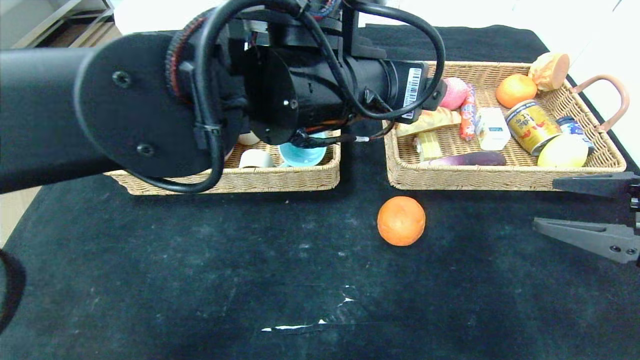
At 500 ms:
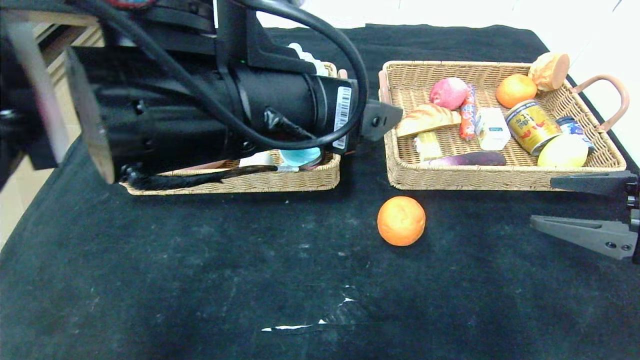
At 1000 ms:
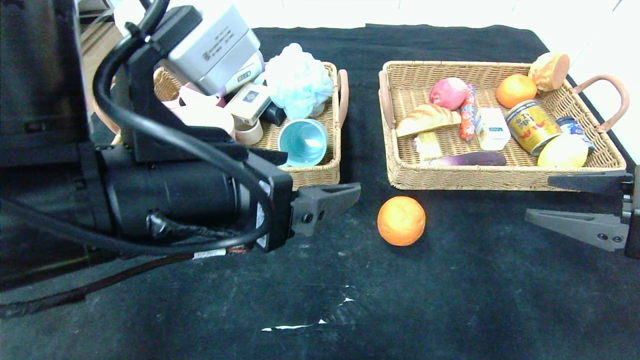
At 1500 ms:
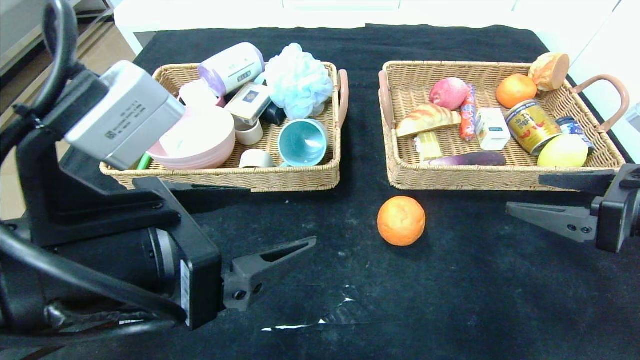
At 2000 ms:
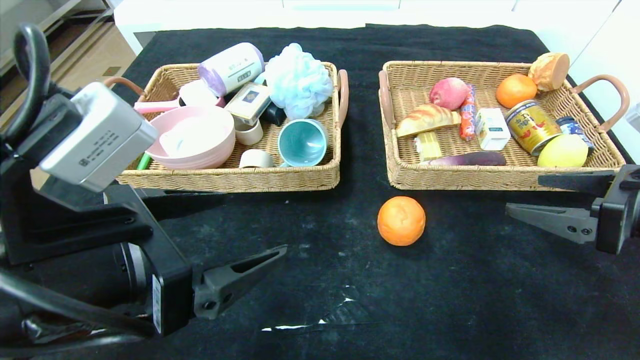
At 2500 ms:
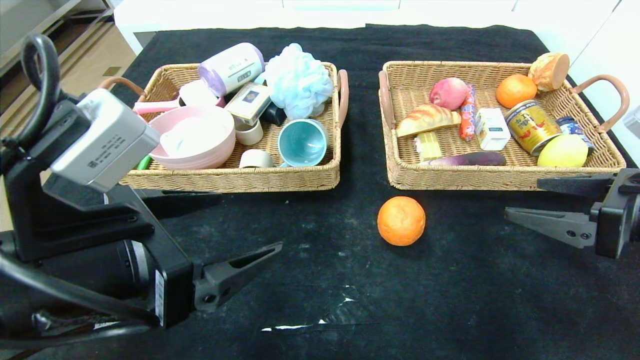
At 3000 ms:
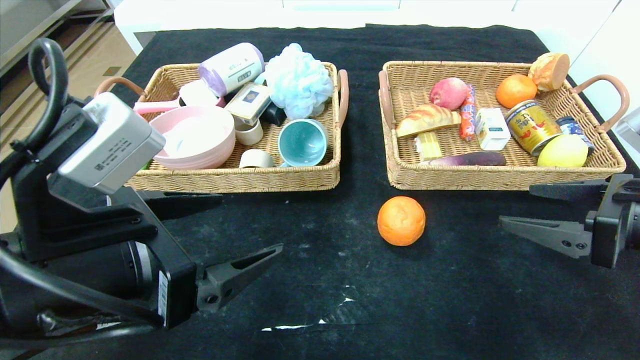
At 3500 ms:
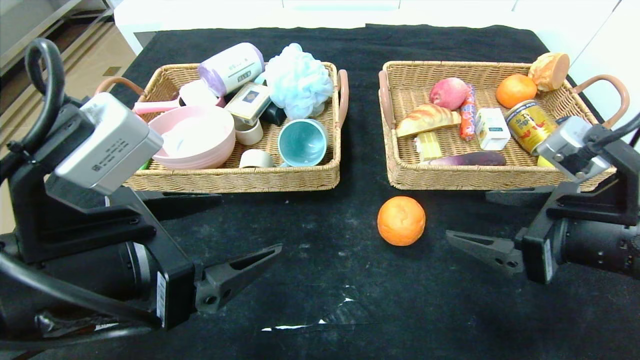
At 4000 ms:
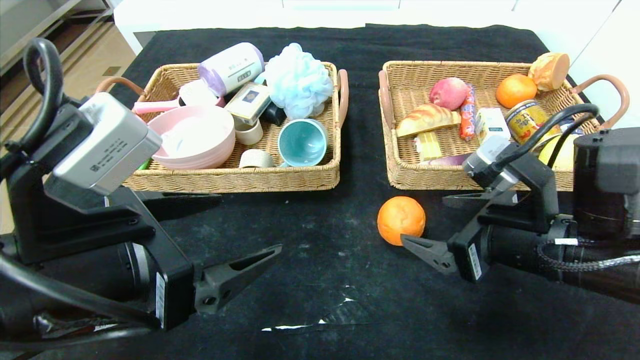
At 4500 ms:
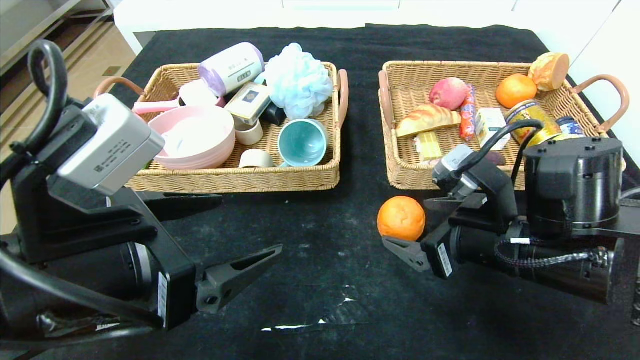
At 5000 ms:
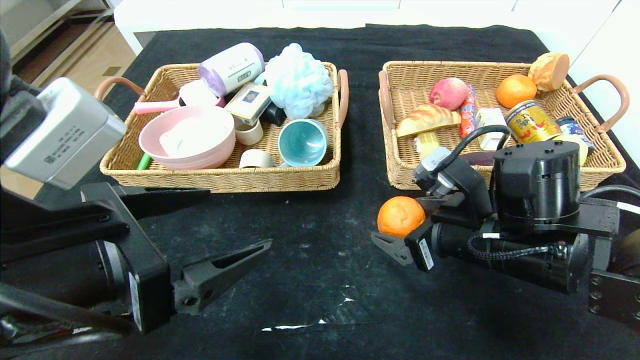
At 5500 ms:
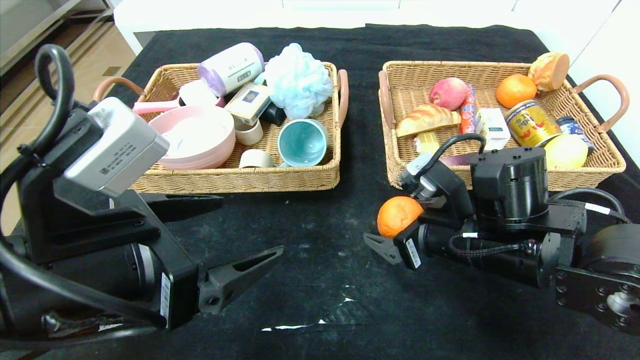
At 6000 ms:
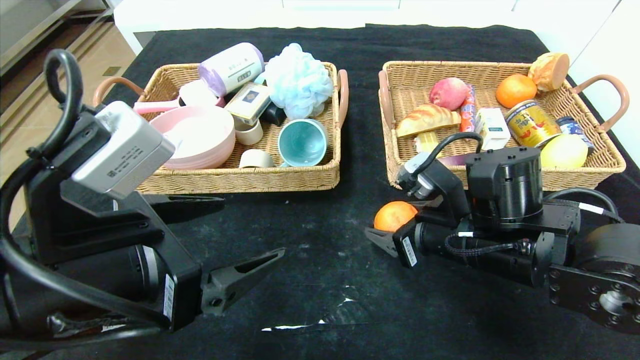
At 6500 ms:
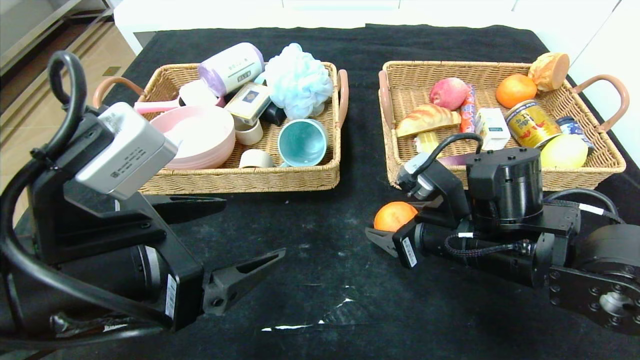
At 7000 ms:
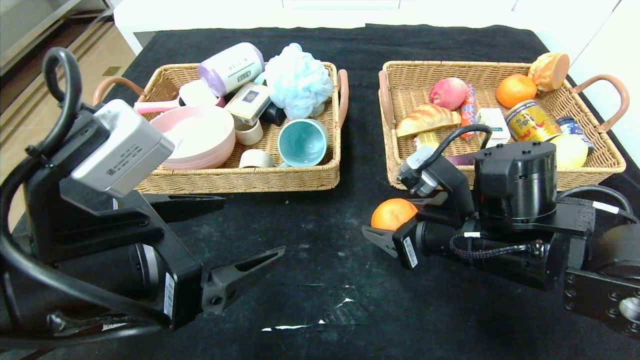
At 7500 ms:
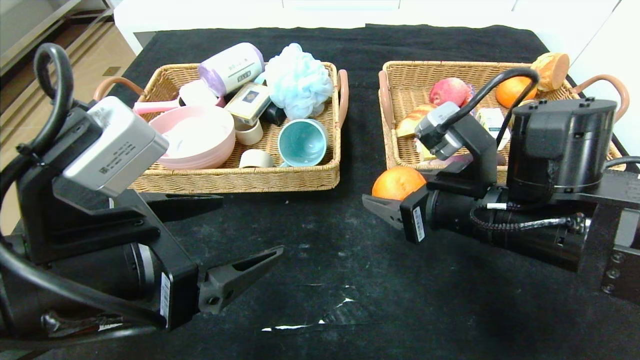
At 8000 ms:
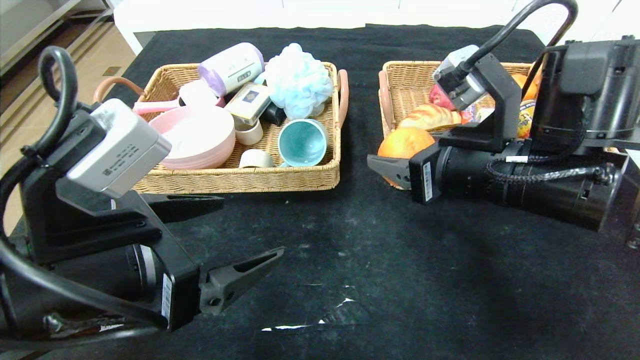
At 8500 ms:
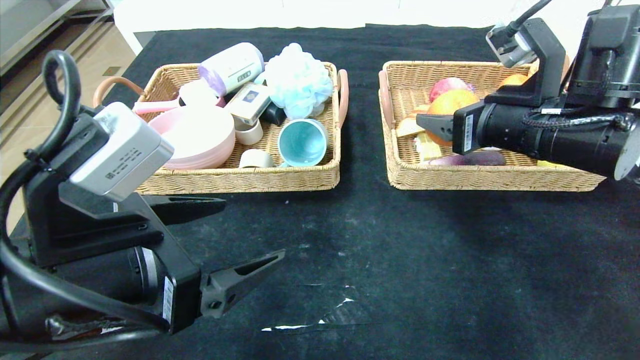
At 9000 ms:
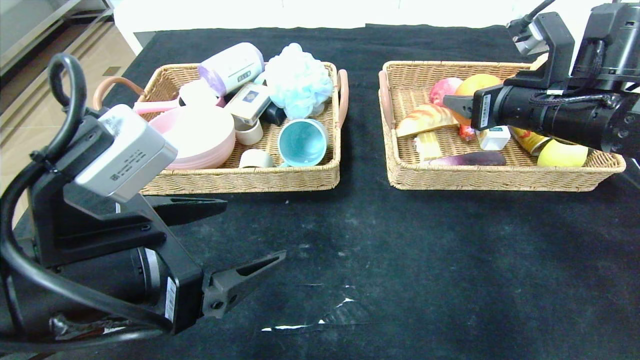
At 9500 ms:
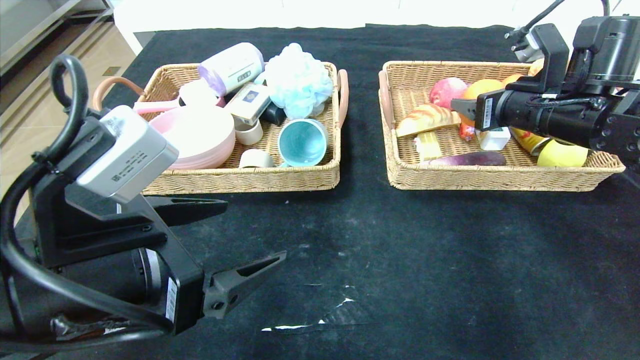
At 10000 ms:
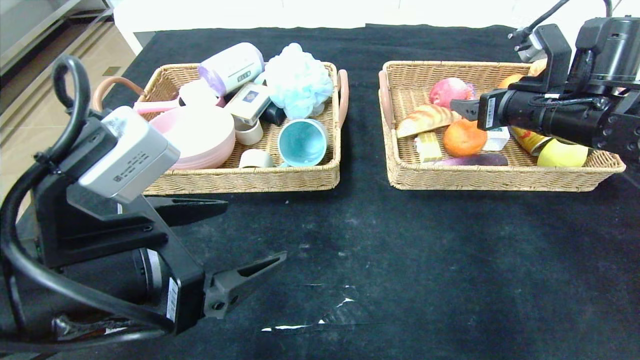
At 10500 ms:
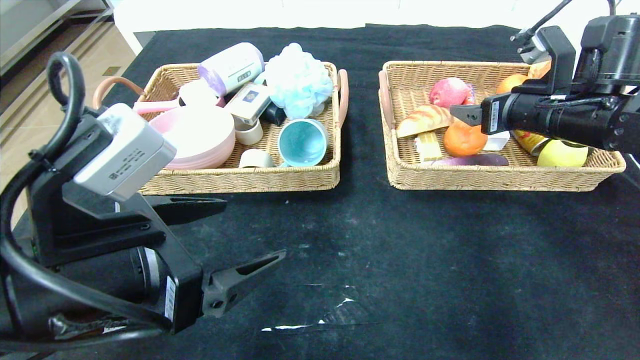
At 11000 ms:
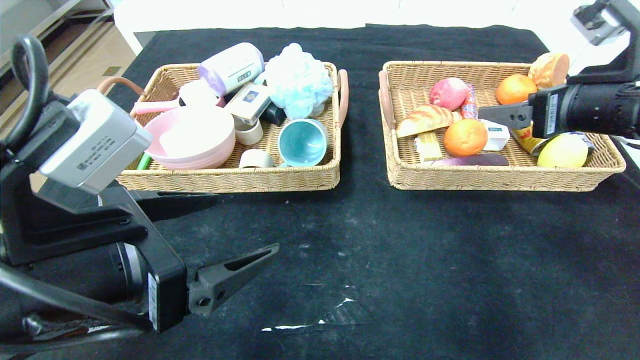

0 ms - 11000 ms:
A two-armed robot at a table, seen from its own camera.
Step, 0 ms - 10500 ms: Grasp the orange and put it in the right basket.
0 ms - 2000 ms: The left gripper shifts roughly 20 cm to the left, backward and downward.
2000 ms - 3500 ms: The right gripper shifts roughly 10 cm to the left.
3500 ms - 5500 ms: The right gripper heads to the left, forward and downward, covering roughly 10 cm.
5500 ms - 7500 ms: The right gripper travels upward by about 5 cm.
7500 ms - 9000 ms: The right gripper travels to the right, forward and upward by roughly 15 cm.
9000 ms - 11000 ms: The right gripper travels backward by about 5 cm.

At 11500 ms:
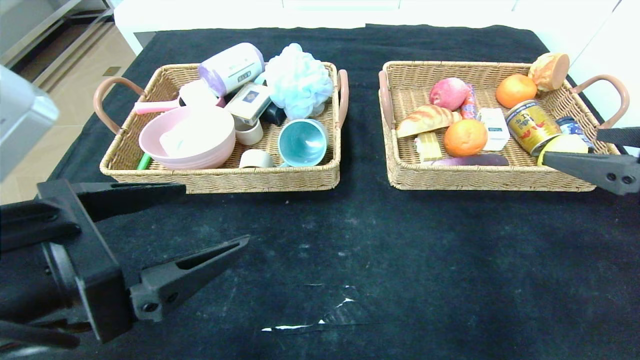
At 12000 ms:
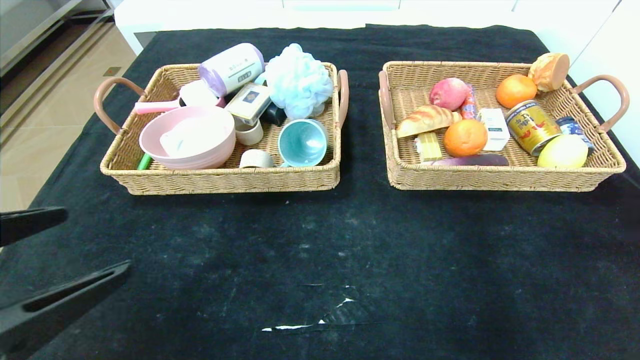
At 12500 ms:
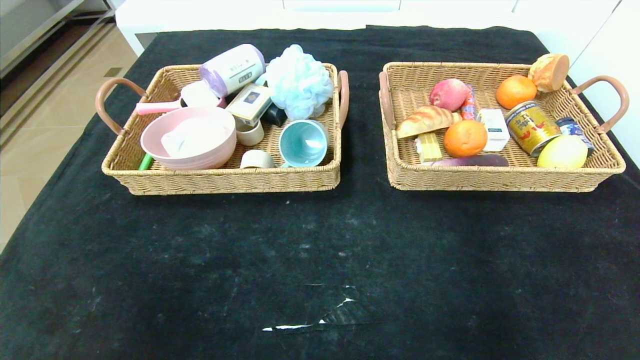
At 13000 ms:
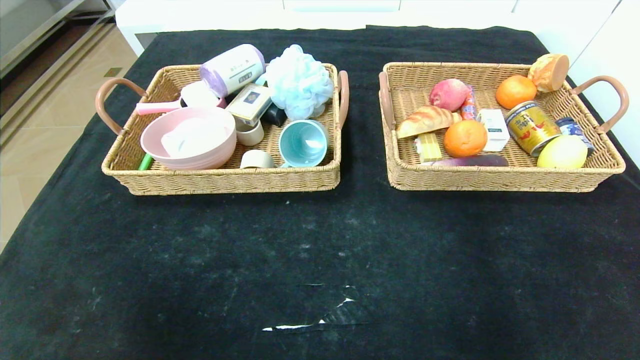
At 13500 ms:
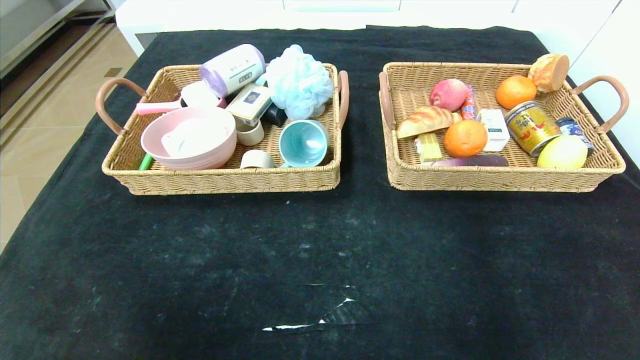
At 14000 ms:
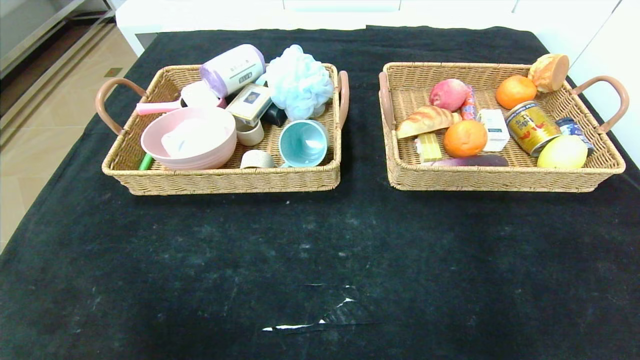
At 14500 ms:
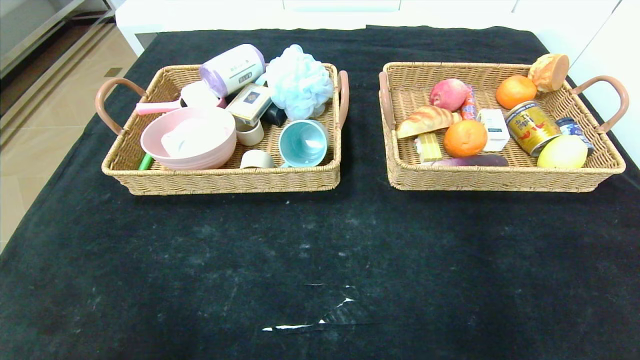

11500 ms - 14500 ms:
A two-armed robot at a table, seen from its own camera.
11500 ms - 13000 ms: The left gripper goes about 20 cm backward and to the left. The right gripper goes approximately 25 cm backward.
